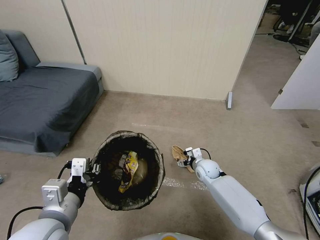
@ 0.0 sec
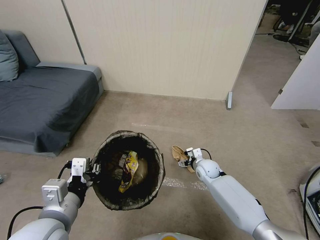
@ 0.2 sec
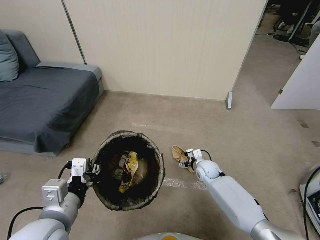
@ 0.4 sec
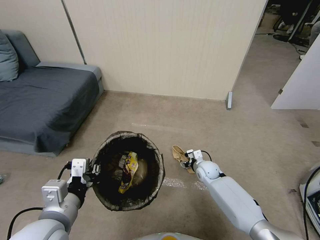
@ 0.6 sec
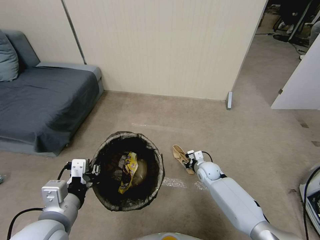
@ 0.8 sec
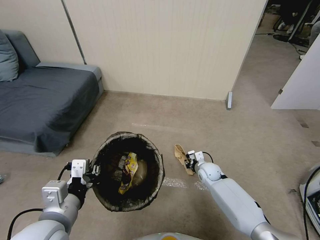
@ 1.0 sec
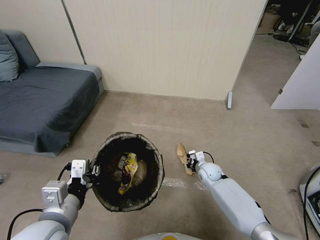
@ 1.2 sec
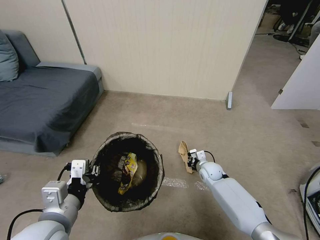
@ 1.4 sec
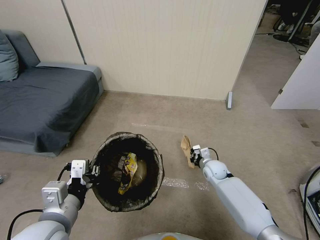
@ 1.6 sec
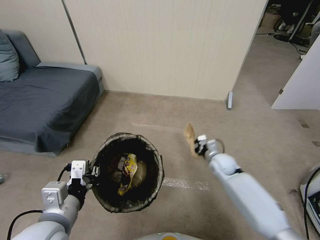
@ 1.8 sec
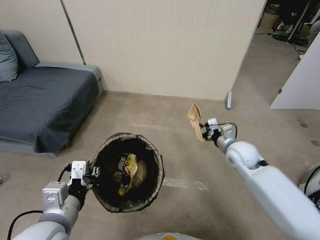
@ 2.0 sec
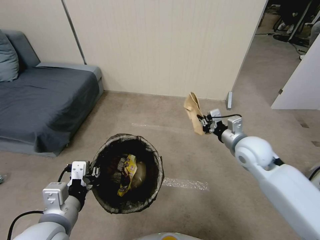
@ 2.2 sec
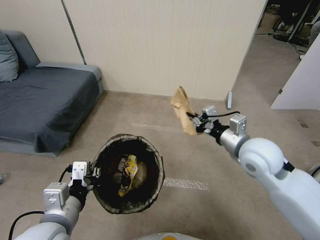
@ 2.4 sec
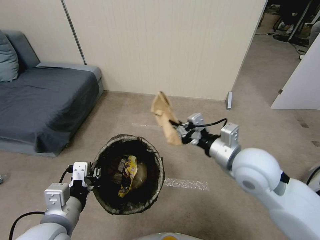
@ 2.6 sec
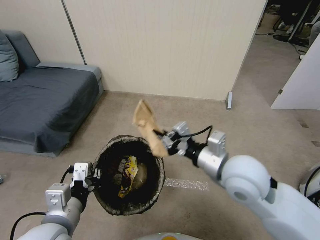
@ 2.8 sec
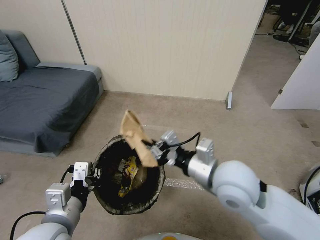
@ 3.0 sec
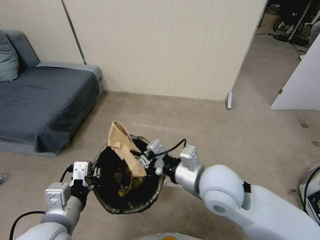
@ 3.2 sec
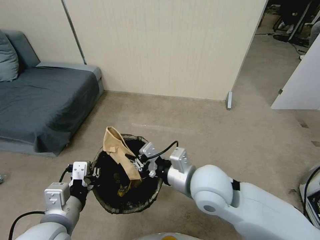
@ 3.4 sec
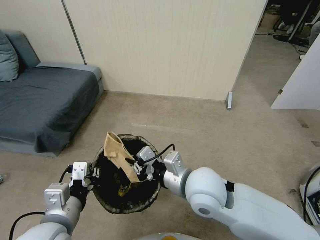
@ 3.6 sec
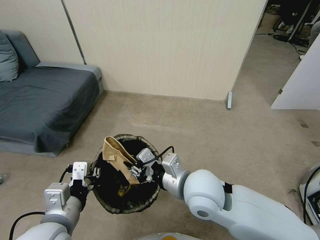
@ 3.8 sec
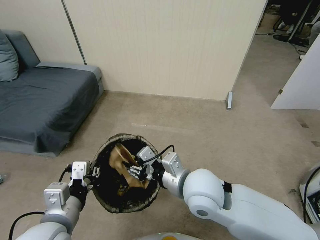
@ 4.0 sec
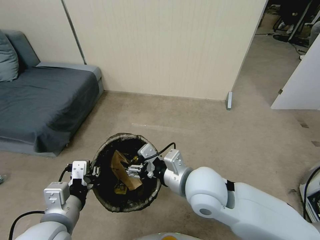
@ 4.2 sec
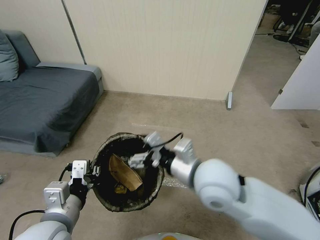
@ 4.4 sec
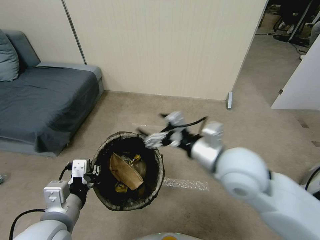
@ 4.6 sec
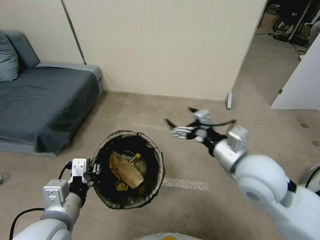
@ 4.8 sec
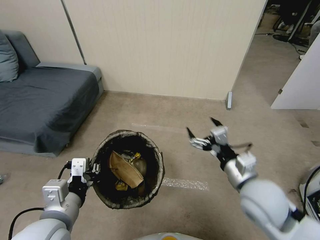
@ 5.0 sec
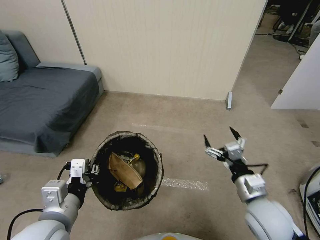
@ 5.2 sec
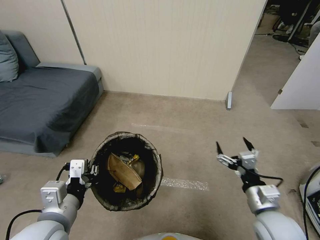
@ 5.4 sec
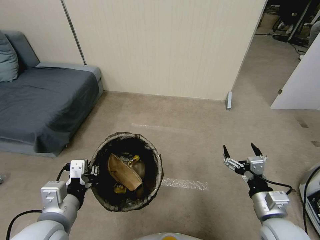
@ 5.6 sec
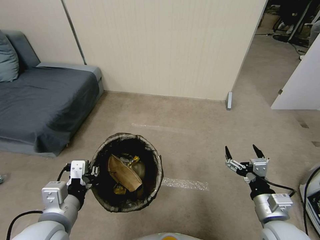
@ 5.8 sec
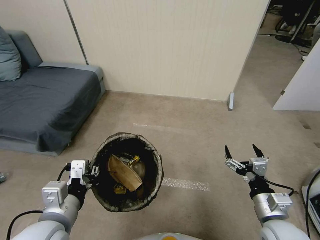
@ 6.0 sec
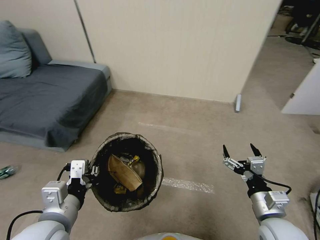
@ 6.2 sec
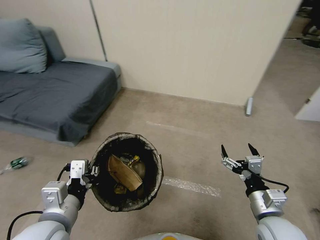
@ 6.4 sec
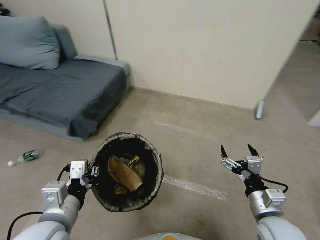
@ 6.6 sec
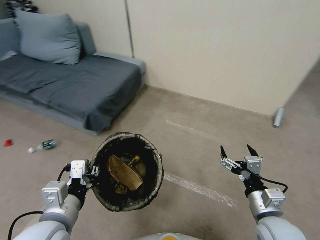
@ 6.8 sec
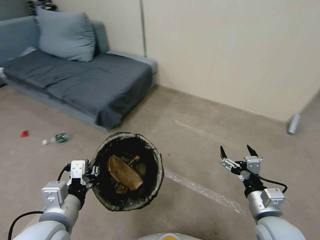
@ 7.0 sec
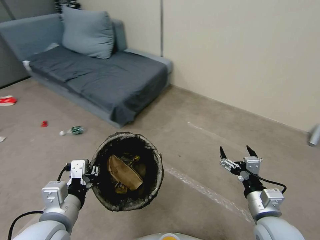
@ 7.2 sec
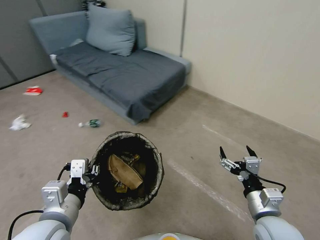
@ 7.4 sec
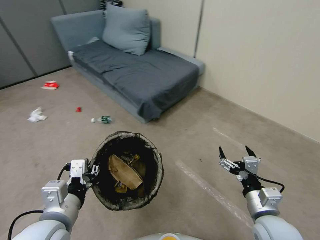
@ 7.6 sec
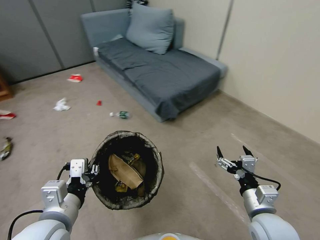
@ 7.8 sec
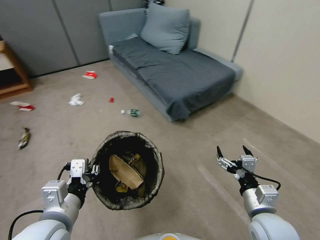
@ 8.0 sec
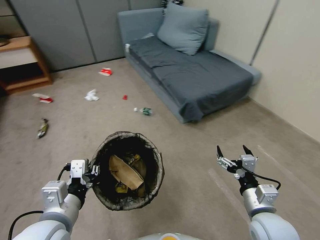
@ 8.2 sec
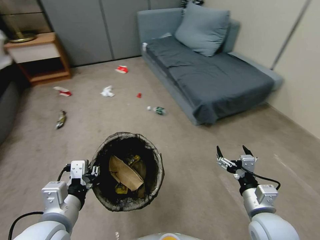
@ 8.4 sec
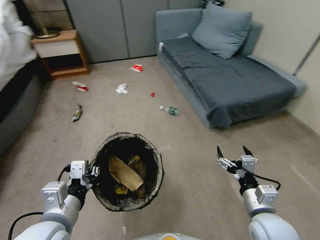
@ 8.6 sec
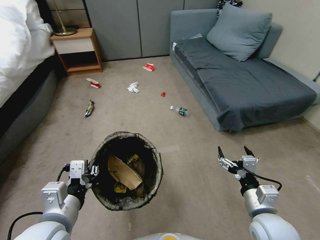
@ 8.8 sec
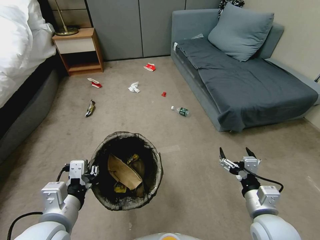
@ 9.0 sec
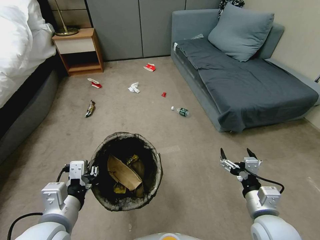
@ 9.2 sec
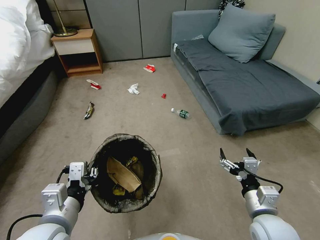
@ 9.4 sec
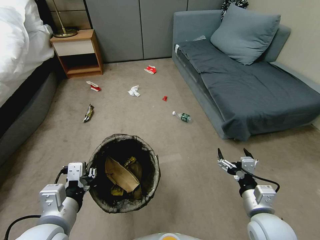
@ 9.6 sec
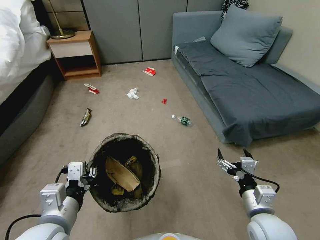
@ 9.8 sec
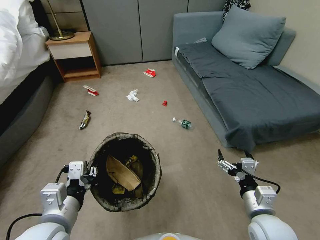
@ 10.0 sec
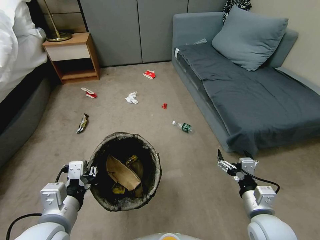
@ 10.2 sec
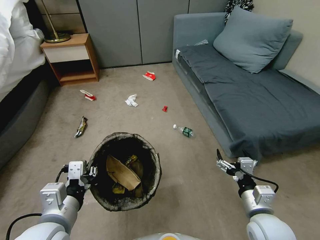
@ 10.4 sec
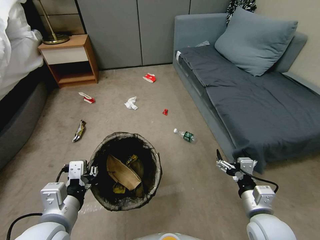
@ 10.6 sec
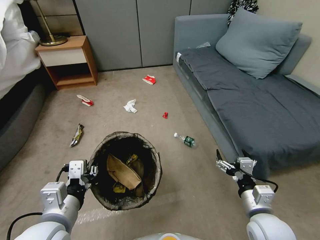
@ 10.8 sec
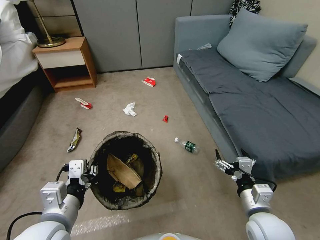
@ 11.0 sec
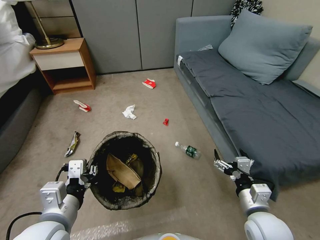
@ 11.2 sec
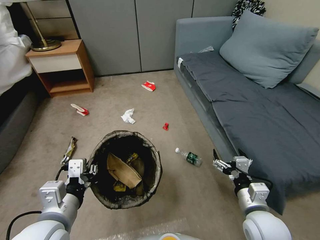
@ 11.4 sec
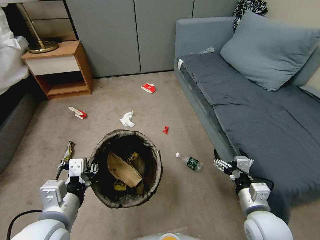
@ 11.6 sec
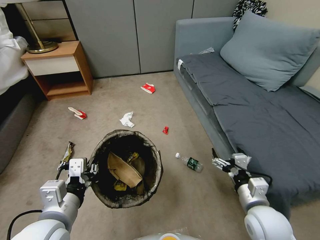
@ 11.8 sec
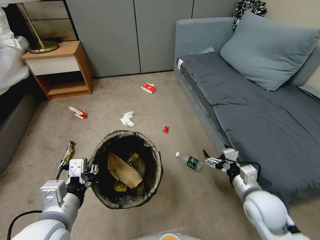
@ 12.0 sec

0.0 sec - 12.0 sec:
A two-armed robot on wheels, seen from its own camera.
Task of the whole recording: Pick up the trash bin, then pick up the garbage from the floor and place it into the trash bin.
0.0 sec - 1.6 sec: The right gripper closes.
1.6 sec - 3.0 sec: The right gripper heads upward and backward, covering roughly 35 cm.
3.0 sec - 4.4 sec: The right gripper is displaced to the left by approximately 5 cm, and opens.
4.4 sec - 6.0 sec: The right gripper heads to the right and downward, covering roughly 25 cm.
10.4 sec - 12.0 sec: The right gripper is displaced forward by approximately 5 cm.

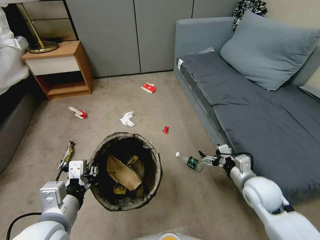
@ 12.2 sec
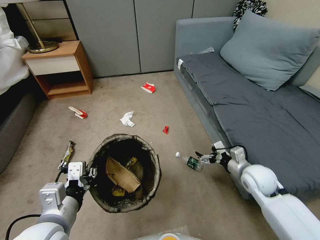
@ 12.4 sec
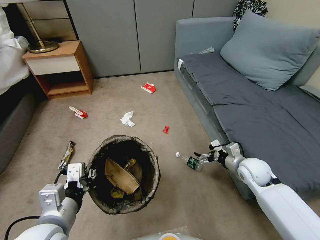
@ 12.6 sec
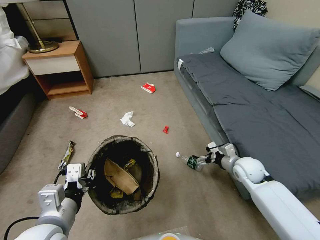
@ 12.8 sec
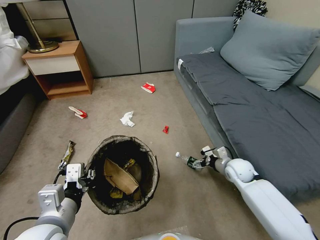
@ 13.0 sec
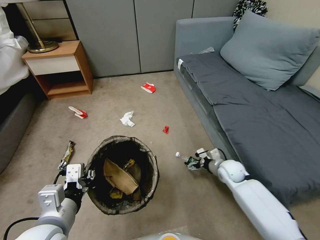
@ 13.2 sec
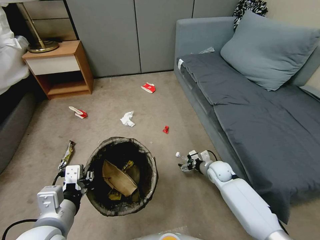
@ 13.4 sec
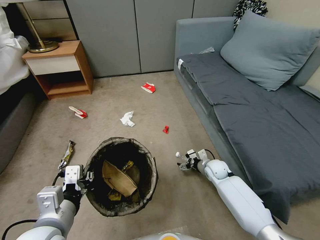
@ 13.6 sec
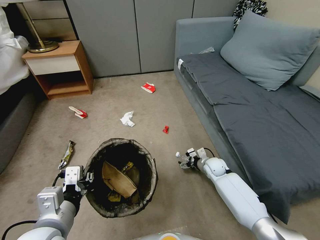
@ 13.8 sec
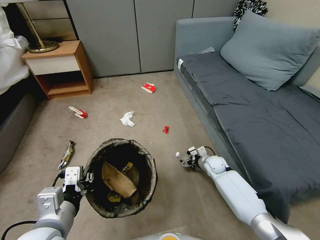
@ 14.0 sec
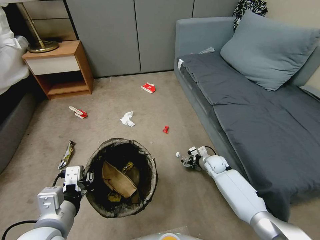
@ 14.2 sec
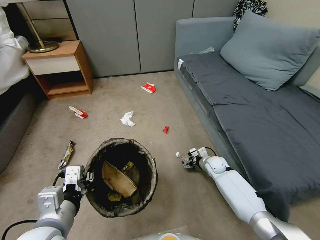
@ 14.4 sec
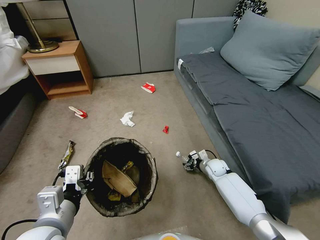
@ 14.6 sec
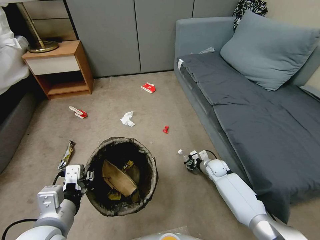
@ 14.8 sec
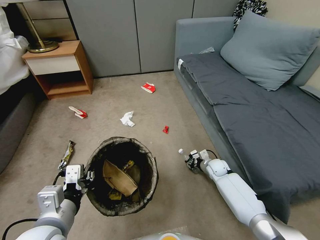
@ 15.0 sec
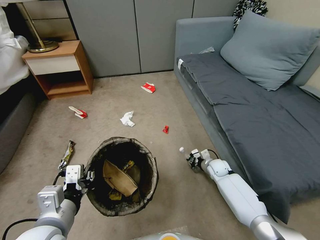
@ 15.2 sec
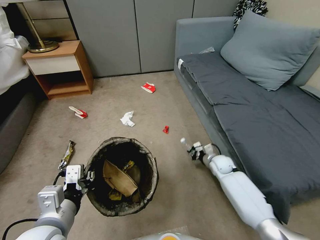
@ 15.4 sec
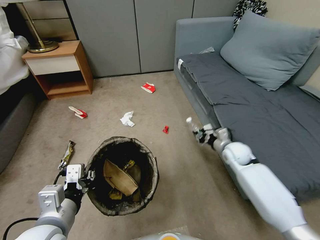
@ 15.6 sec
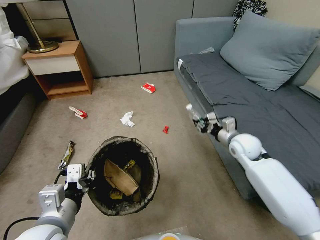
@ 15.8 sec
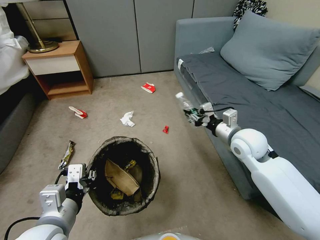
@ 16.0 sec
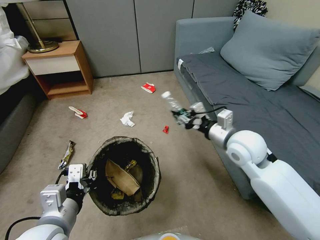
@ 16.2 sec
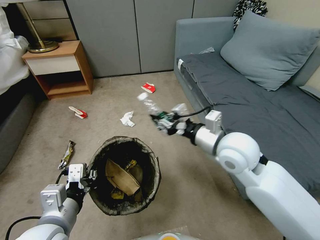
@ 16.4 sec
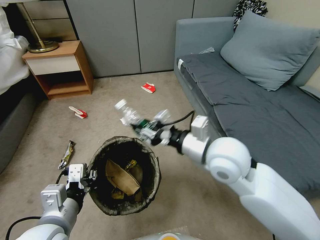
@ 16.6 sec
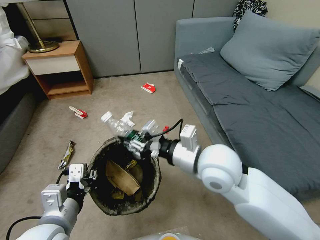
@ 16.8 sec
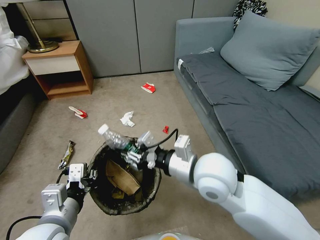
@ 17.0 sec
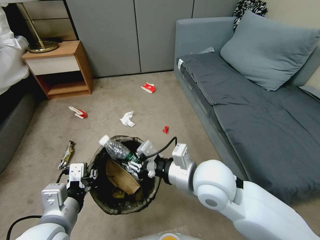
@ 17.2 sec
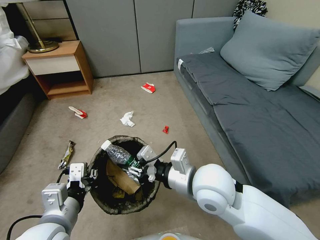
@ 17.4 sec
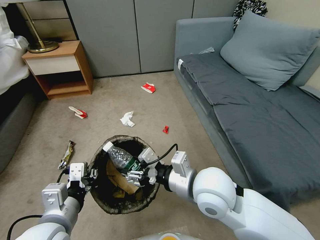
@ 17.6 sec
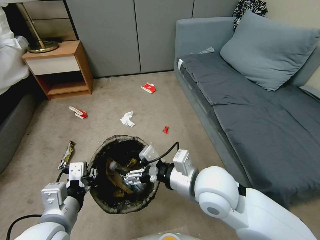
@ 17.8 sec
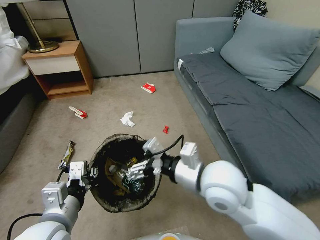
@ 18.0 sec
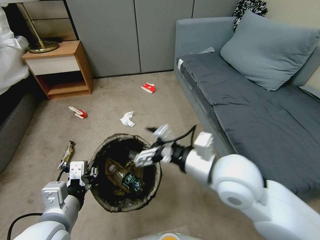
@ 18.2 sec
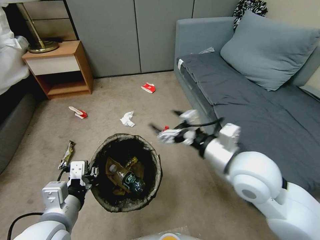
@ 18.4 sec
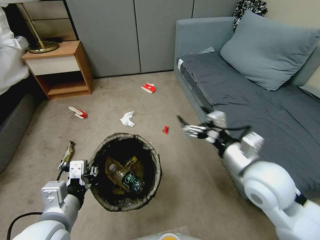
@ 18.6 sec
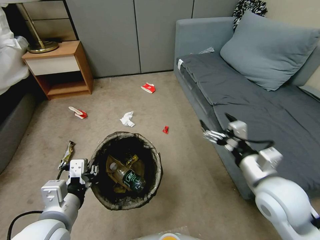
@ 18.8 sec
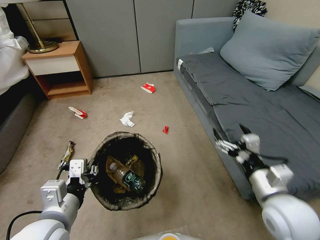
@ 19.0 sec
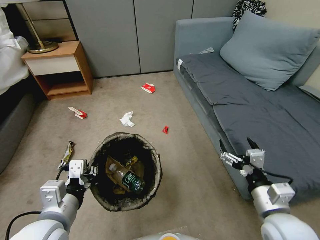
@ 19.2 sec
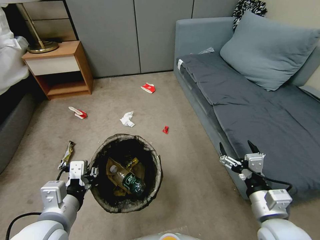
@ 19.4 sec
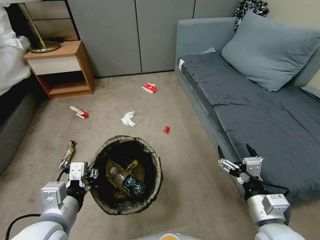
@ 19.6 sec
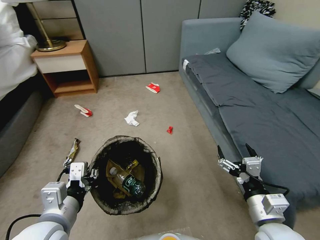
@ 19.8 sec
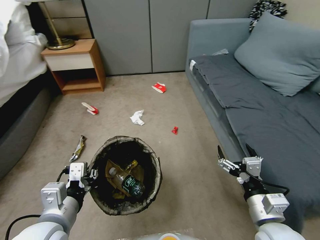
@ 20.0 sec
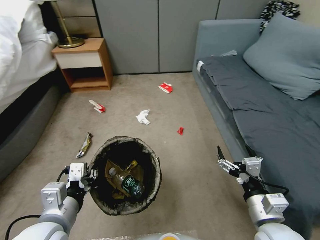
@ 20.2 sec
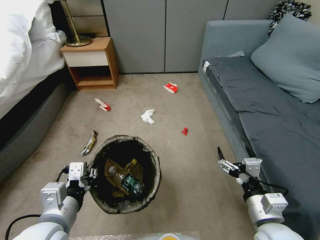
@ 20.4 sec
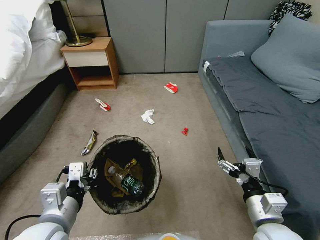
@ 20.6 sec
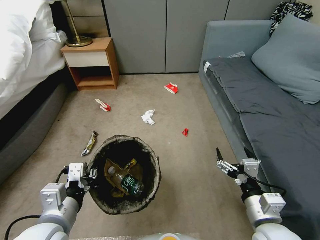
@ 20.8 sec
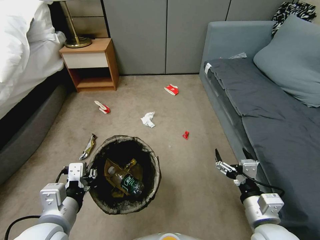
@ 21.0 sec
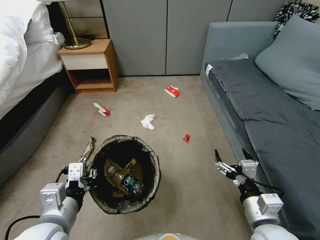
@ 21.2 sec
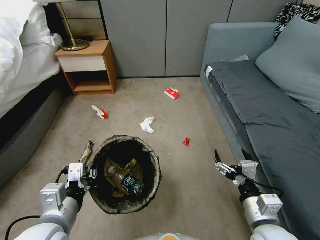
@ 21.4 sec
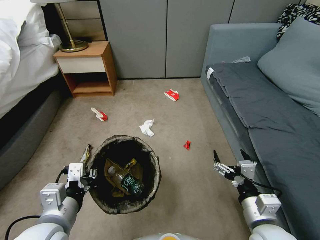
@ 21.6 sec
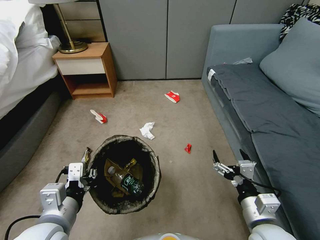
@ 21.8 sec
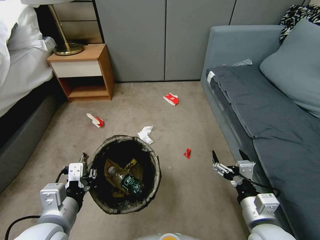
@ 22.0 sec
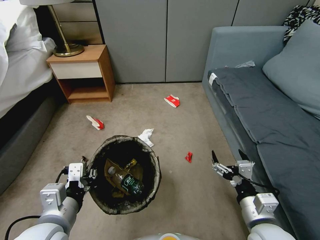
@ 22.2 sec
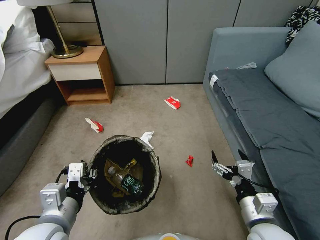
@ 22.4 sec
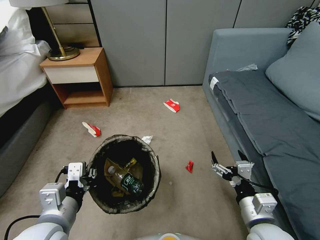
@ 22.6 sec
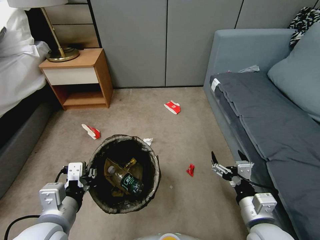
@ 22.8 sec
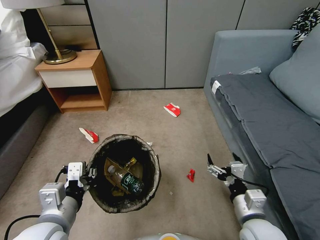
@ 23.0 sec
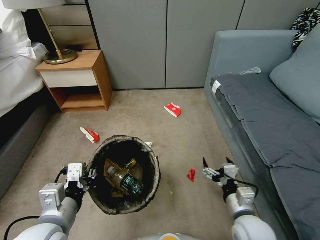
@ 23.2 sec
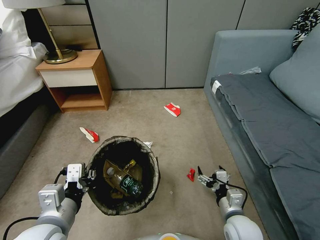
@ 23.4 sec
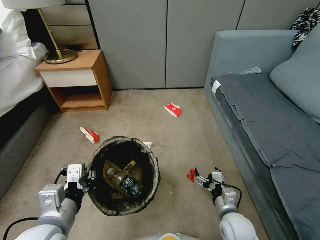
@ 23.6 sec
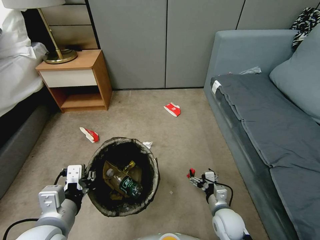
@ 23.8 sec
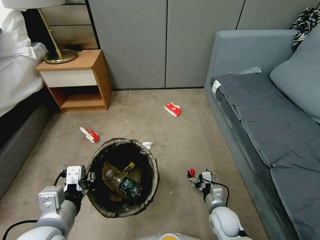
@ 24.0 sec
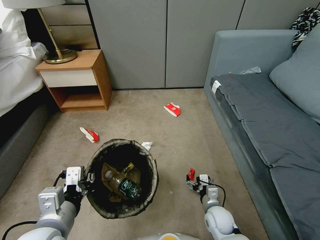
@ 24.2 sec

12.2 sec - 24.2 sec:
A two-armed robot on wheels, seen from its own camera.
Task of the whole recording: Pick up the trash bin, then pick up the garbage from the floor and place it into the trash bin.
12.2 sec - 13.8 sec: The right gripper goes roughly 25 cm downward, forward and to the left.
13.8 sec - 15.2 sec: The right gripper closes.
15.2 sec - 16.6 sec: The right gripper heads upward, covering roughly 35 cm.
16.6 sec - 18.2 sec: The right gripper opens its fingers.
18.2 sec - 19.8 sec: The right gripper travels downward, to the right and backward by approximately 20 cm.
22.6 sec - 24.2 sec: The right gripper travels downward and forward by about 25 cm.
